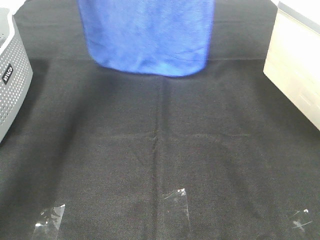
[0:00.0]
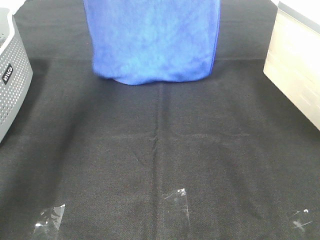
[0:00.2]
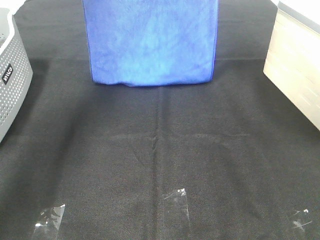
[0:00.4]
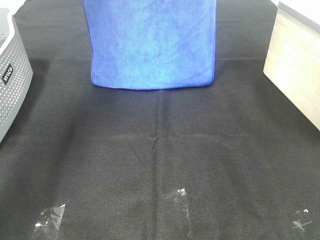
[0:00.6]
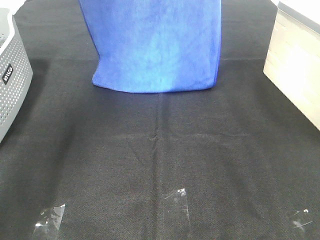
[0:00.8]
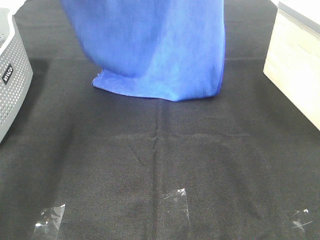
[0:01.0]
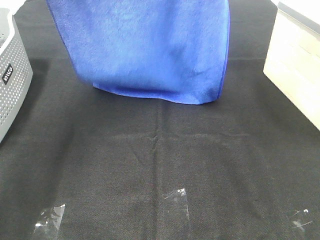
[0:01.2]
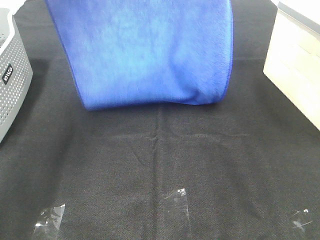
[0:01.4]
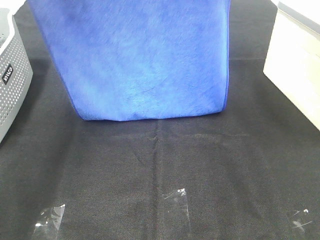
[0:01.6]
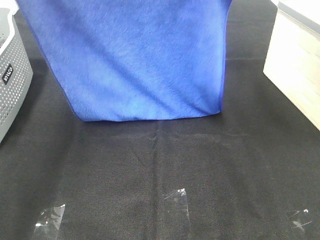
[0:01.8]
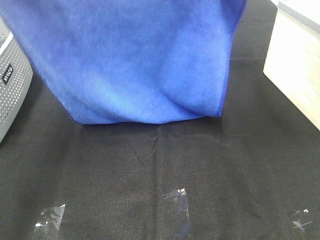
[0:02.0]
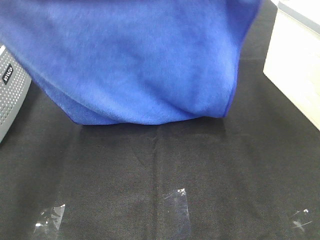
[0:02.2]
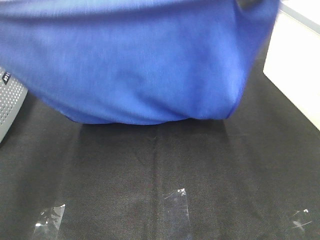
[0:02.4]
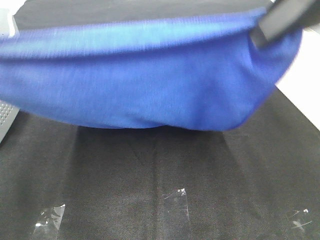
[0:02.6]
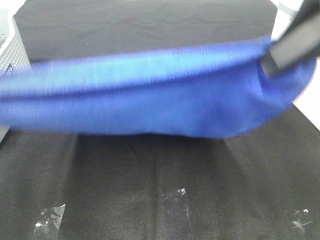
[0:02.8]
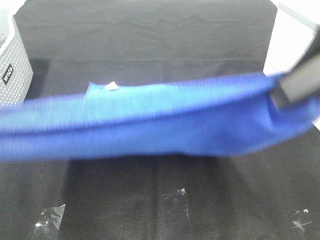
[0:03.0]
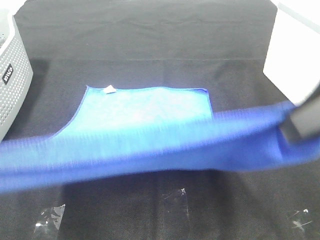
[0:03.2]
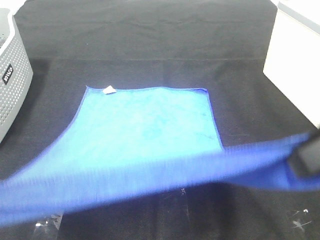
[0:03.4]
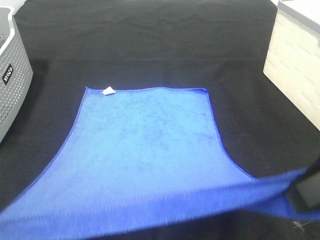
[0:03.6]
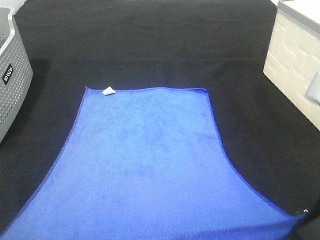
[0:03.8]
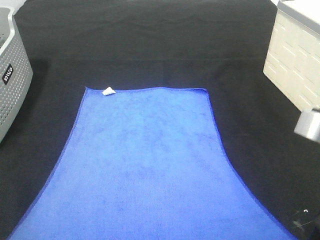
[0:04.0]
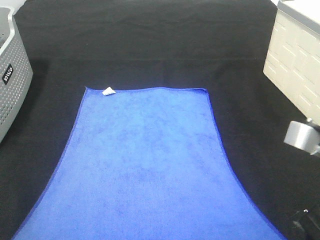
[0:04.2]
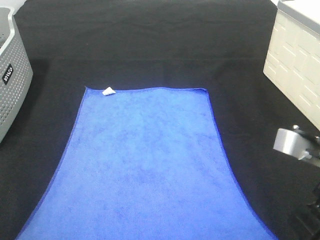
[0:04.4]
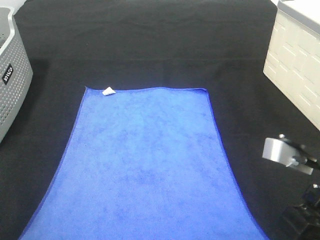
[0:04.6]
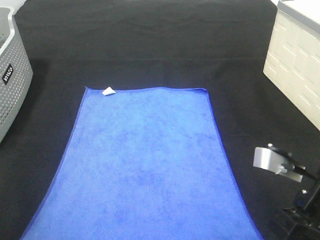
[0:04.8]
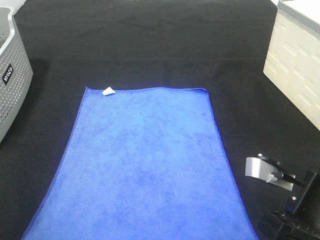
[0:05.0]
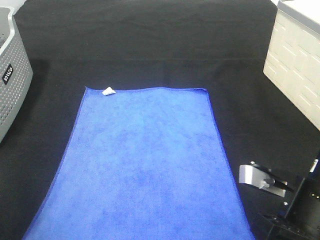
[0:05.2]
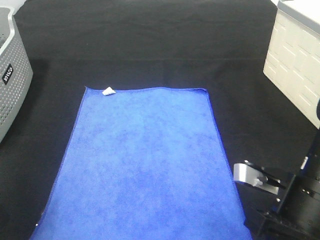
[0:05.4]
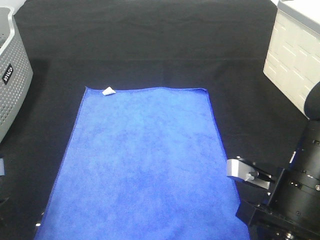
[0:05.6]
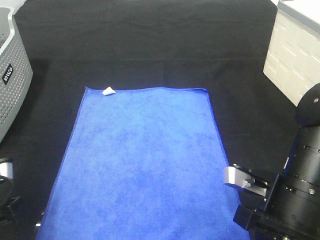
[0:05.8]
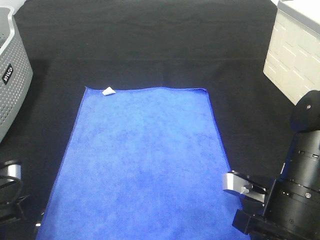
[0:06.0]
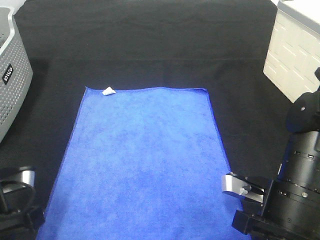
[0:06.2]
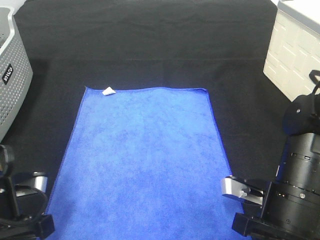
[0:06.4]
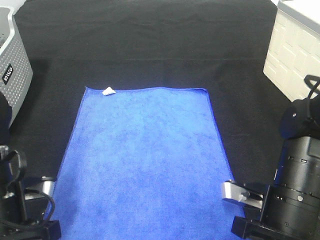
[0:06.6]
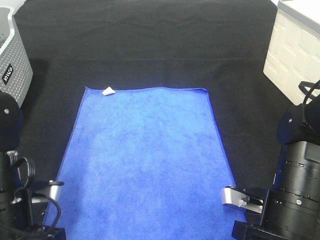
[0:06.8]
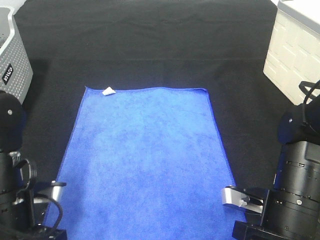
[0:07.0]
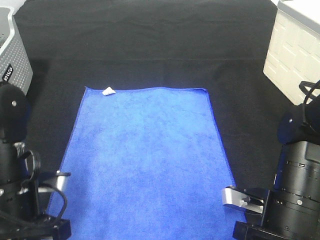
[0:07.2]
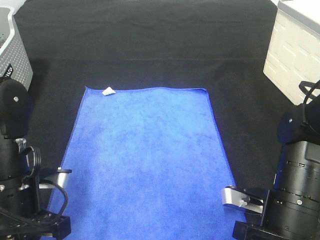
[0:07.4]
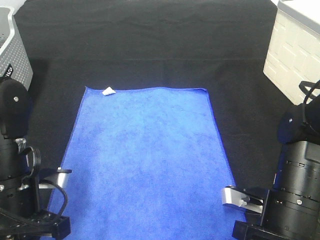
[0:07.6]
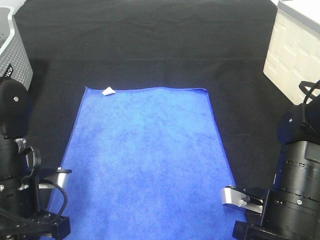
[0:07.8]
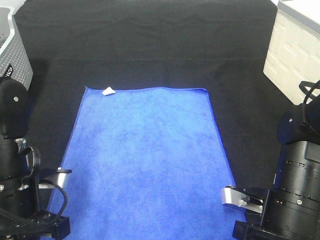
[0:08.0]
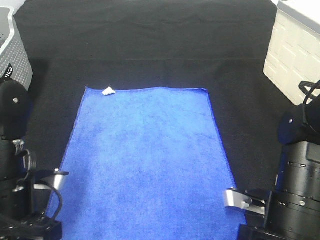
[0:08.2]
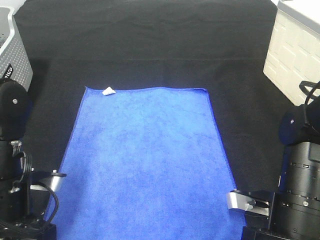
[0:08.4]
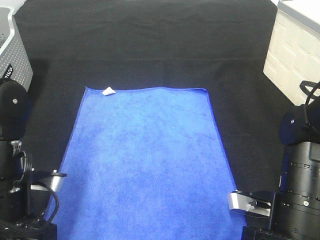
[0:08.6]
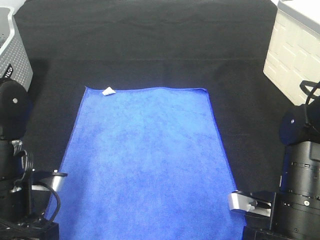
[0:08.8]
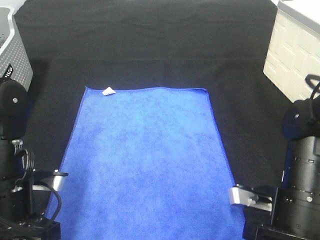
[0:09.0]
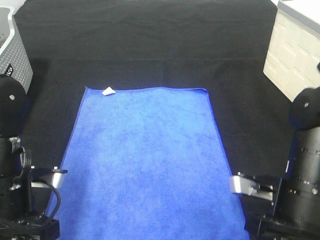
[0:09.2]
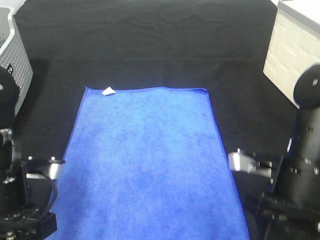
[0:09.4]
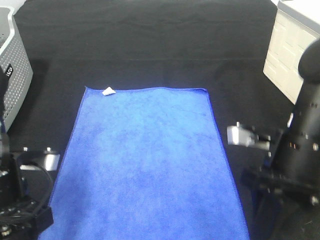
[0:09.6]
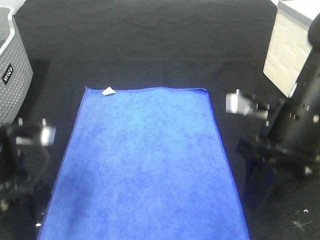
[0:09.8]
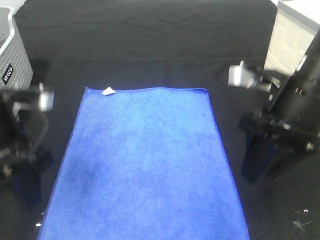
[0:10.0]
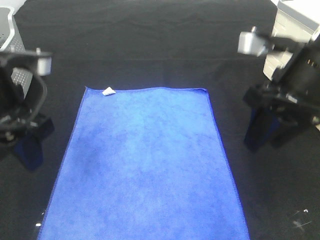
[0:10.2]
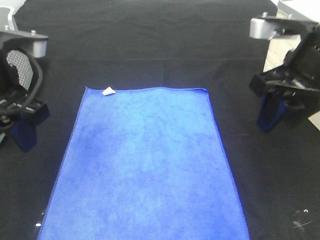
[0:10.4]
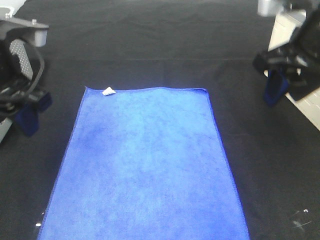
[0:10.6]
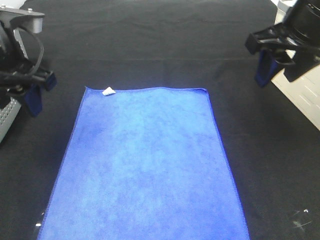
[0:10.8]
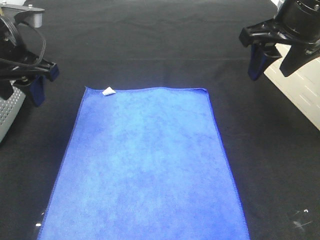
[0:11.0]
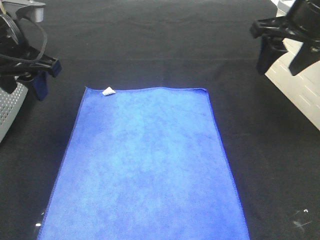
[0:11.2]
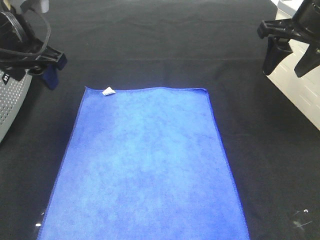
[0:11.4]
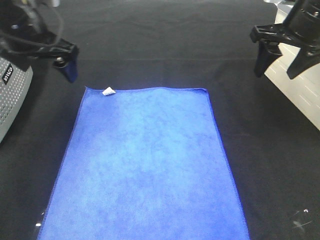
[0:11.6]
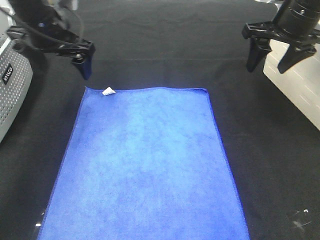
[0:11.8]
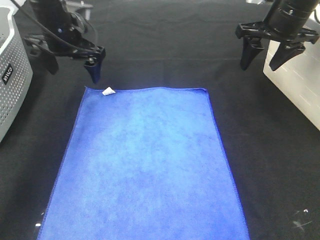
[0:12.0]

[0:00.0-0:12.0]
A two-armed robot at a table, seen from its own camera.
Task of the whole recording: Remove the towel and place it.
Step, 0.0 to 3.0 s: Left hand: spread the blue towel flat on the table.
Step, 0.0 to 3.0 s: Right hand: spread the blue towel flat on the table.
0.0 to 1.6 s: Both grippers travel together backward, some 15 cm.
1.6 to 3.0 s: The left gripper heads backward, covering about 25 cm. The right gripper heads backward and downward, covering about 20 cm.
3.0 to 4.4 s: Both grippers move downward, roughly 15 cm.
4.4 to 6.0 s: The left gripper shifts roughly 10 cm forward and downward. The right gripper heads downward and forward, covering roughly 10 cm.
6.0 to 7.6 s: The left gripper moves roughly 5 cm.
7.6 to 9.0 s: The right gripper opens. Meanwhile the left gripper opens up.
9.0 to 10.4 s: Both grippers move upward and forward, approximately 20 cm.
10.4 to 12.0 s: Both grippers move forward, roughly 20 cm. The left gripper opens up.

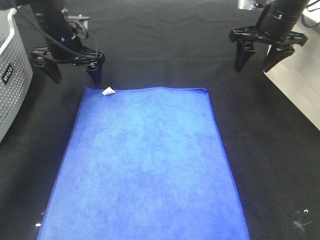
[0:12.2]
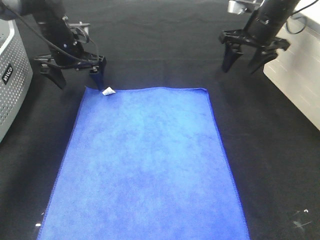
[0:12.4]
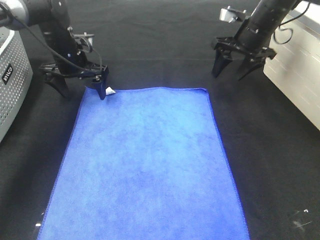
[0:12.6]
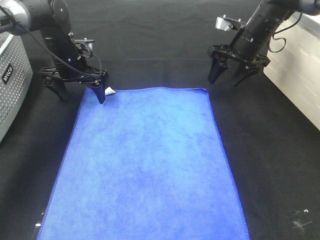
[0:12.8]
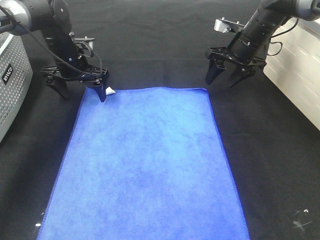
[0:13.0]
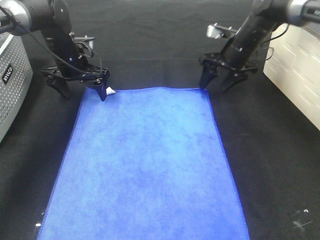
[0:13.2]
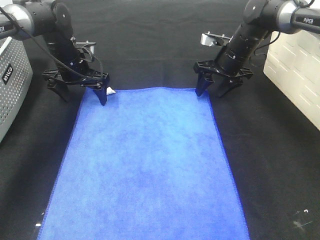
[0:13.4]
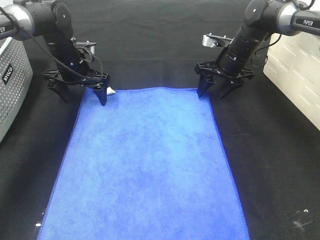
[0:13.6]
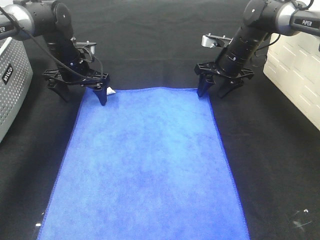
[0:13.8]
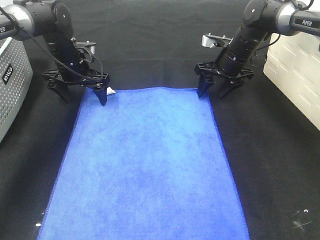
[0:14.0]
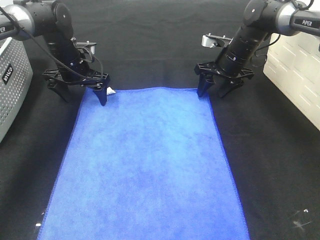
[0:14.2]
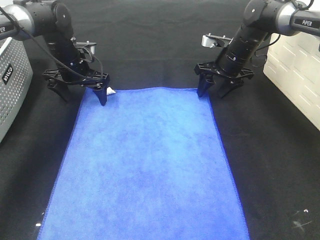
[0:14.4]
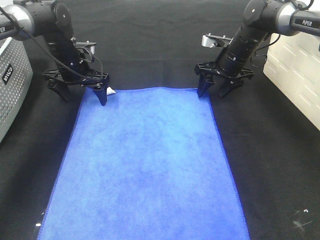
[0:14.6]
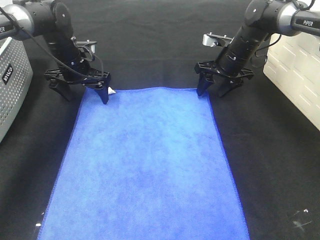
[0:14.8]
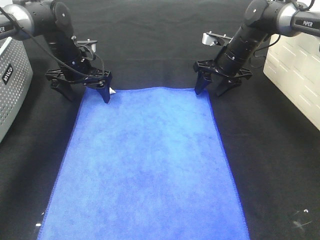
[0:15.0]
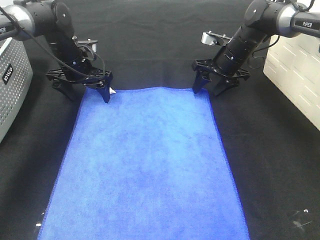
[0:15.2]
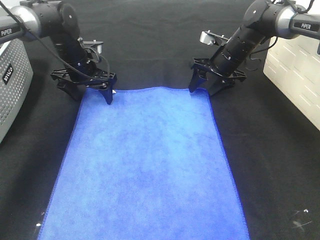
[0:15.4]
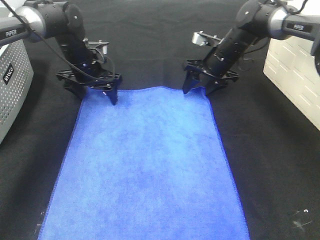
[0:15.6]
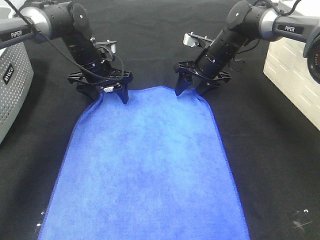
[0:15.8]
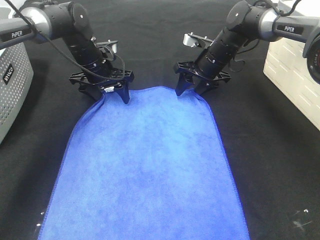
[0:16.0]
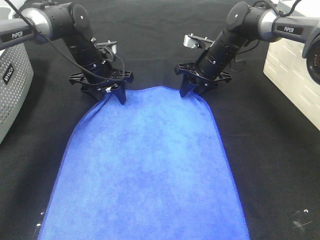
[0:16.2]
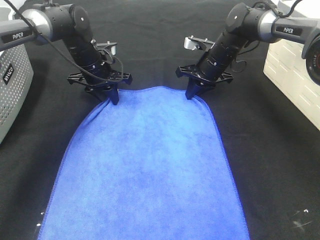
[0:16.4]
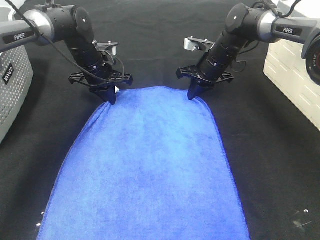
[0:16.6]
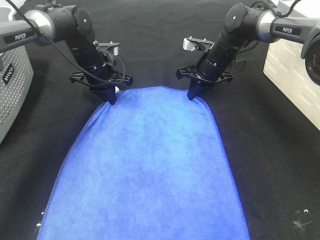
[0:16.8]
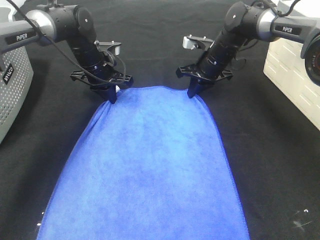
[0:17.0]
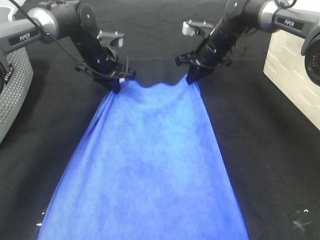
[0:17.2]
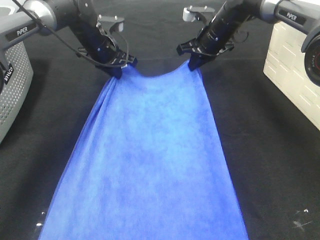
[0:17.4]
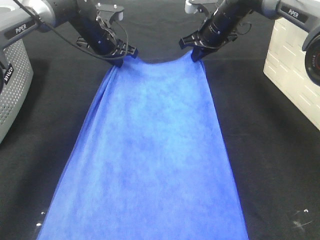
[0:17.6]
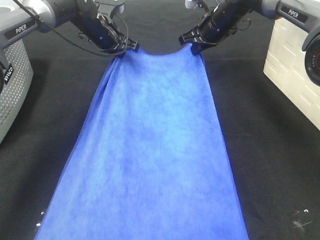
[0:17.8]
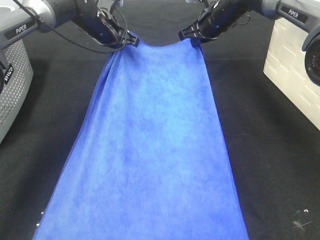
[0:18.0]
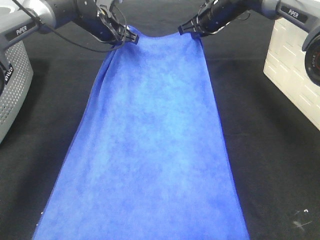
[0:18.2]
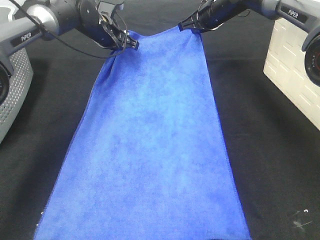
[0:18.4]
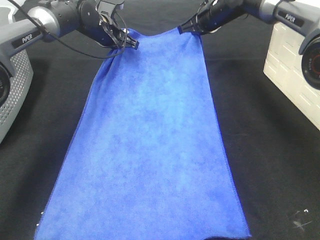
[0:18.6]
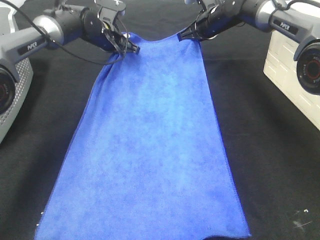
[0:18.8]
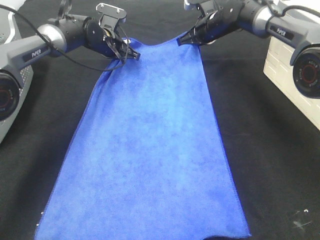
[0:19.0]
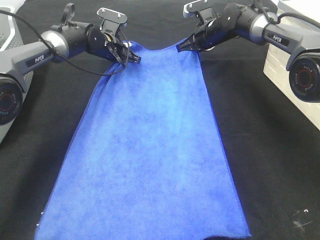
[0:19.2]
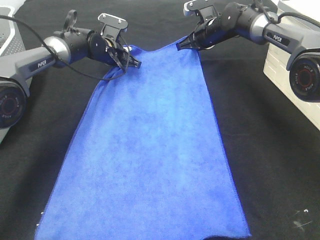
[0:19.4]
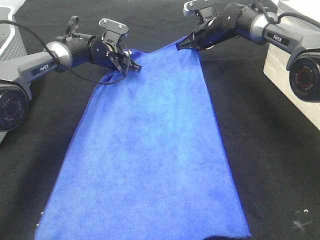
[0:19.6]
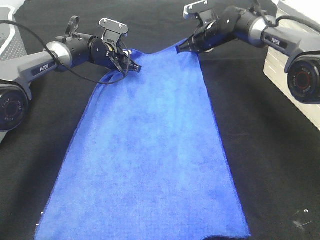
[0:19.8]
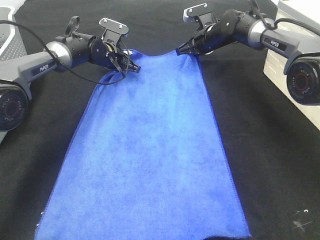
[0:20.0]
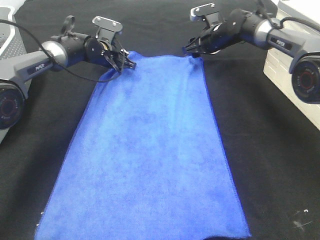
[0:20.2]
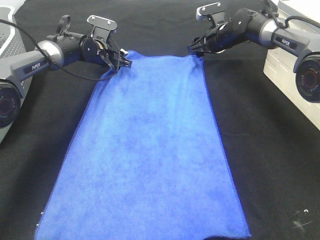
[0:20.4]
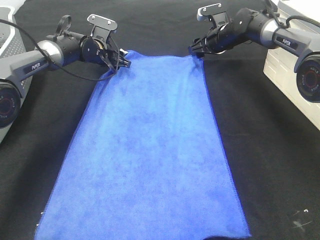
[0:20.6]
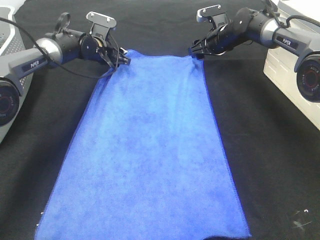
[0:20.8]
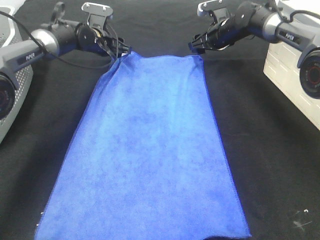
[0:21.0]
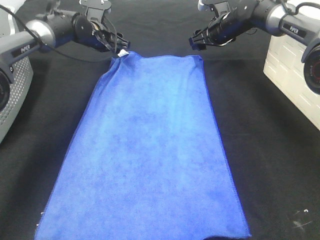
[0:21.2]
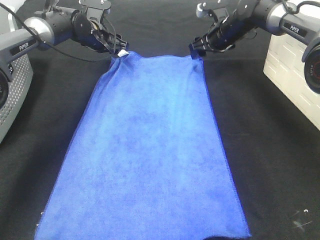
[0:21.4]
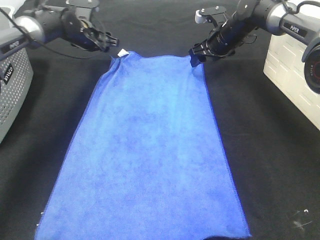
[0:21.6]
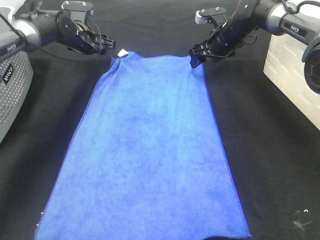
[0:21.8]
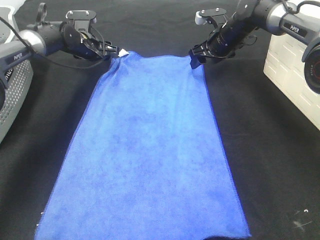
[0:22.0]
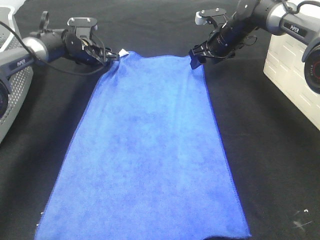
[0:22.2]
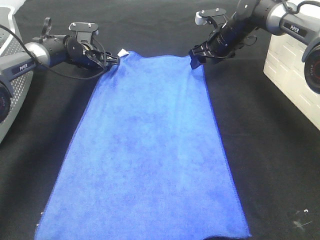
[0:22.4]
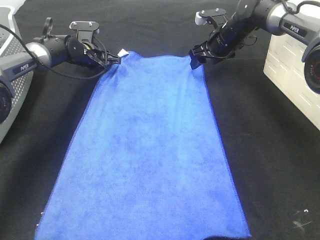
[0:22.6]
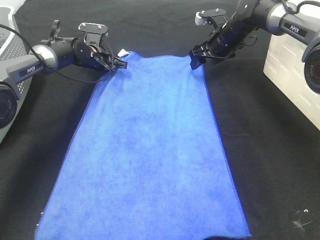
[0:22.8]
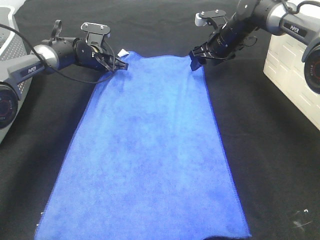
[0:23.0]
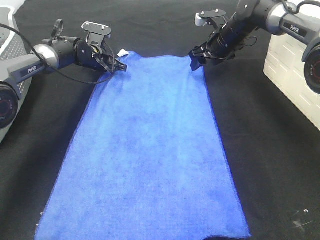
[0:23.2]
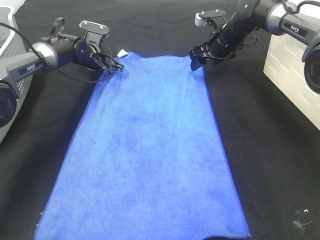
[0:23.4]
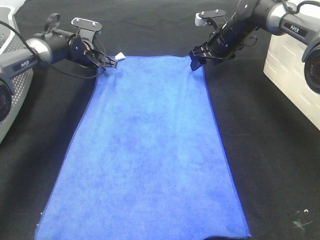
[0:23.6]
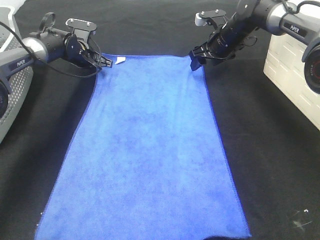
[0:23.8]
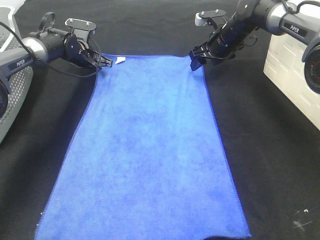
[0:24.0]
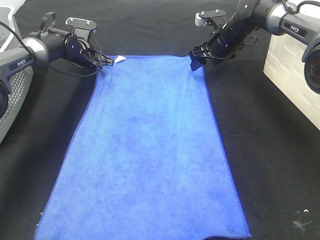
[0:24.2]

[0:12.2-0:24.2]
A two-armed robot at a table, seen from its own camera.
Task of the whole recording: Remove the towel and place it.
Step, 12.2 to 16.0 s: Left hand:adjust the blue towel.
12.2 to 13.8 s: The left gripper travels downward by roughly 5 cm, while the right gripper heads downward, covering about 10 cm.
13.8 to 15.2 s: There are only small adjustments of the grippers.
15.2 to 16.6 s: The right gripper closes its fingers. Meanwhile the left gripper closes.
16.6 to 18.2 s: Both grippers move upward and forward, approximately 10 cm.
18.2 to 19.8 s: Both grippers travel together downward, about 10 cm.
19.8 to 21.2 s: The right gripper opens. Meanwhile the left gripper travels upward by about 5 cm, and opens up.
21.2 to 22.6 s: The left gripper is displaced downward by some 5 cm.
22.6 to 24.2 s: The grippers make only small movements.
